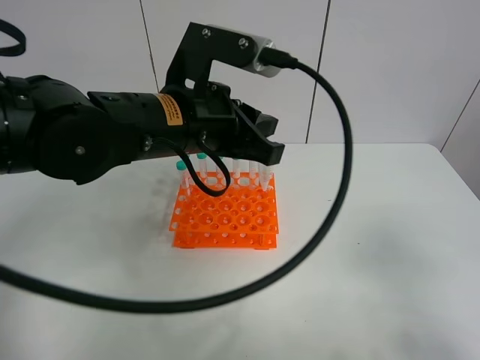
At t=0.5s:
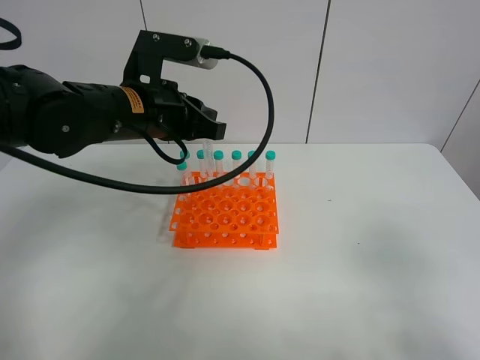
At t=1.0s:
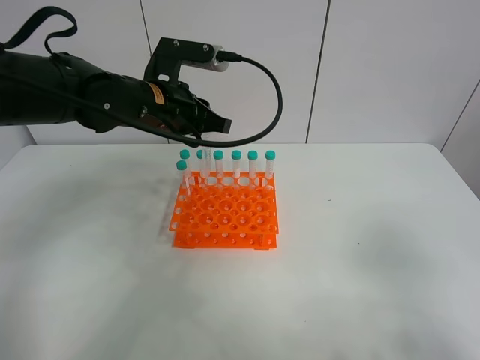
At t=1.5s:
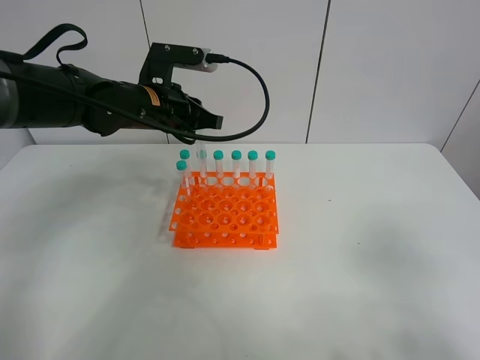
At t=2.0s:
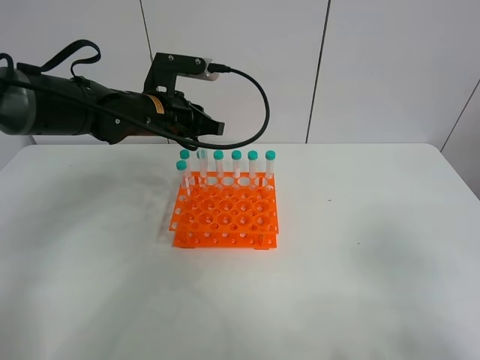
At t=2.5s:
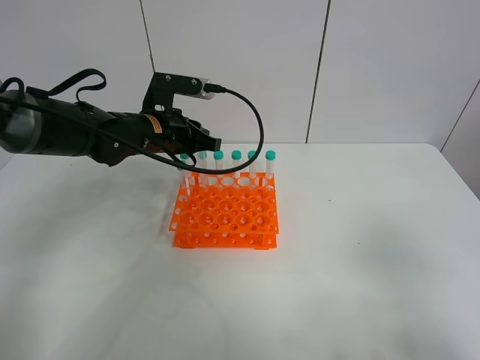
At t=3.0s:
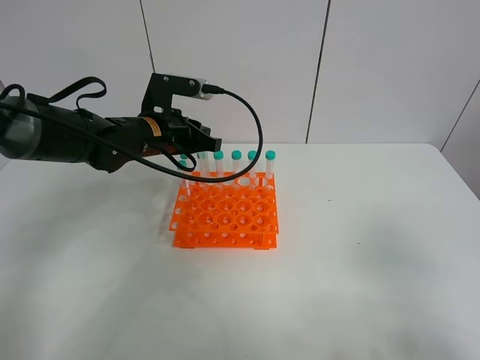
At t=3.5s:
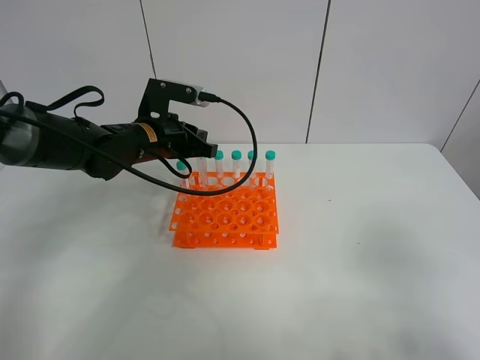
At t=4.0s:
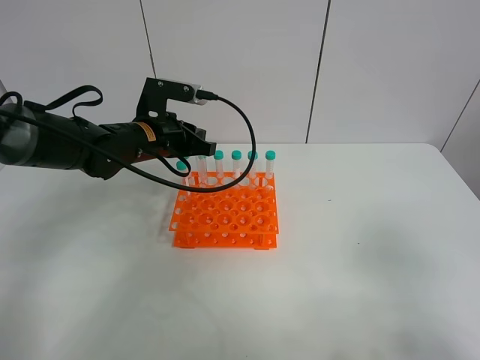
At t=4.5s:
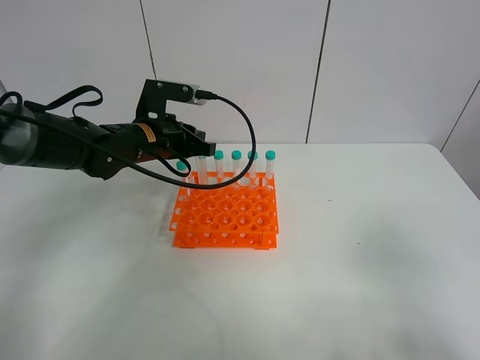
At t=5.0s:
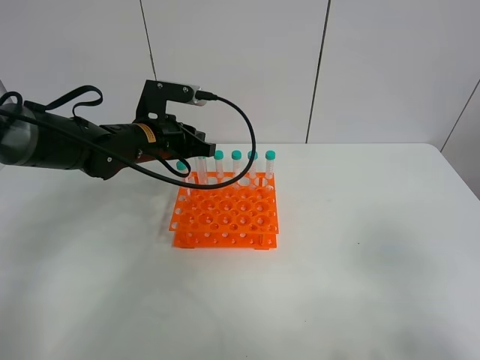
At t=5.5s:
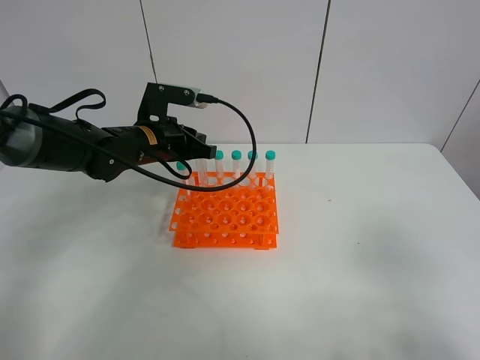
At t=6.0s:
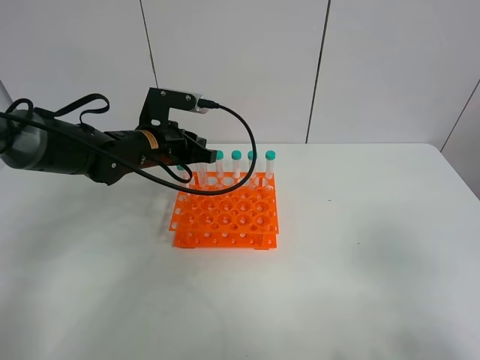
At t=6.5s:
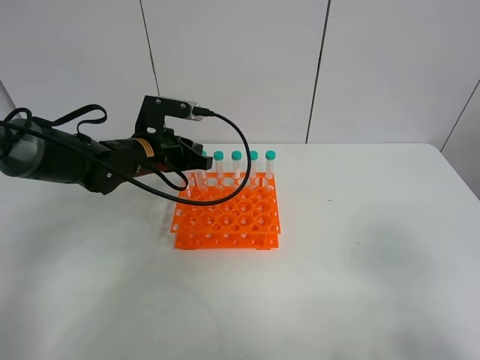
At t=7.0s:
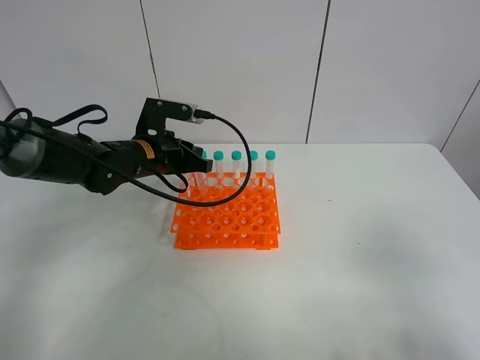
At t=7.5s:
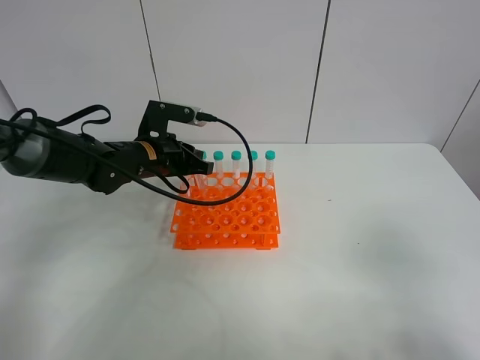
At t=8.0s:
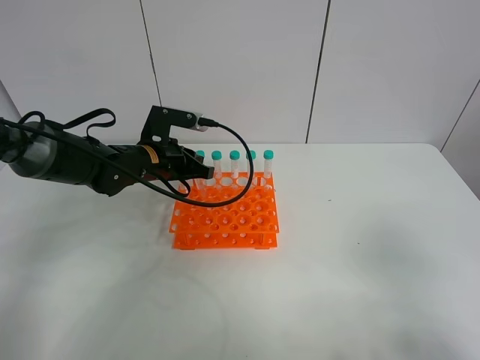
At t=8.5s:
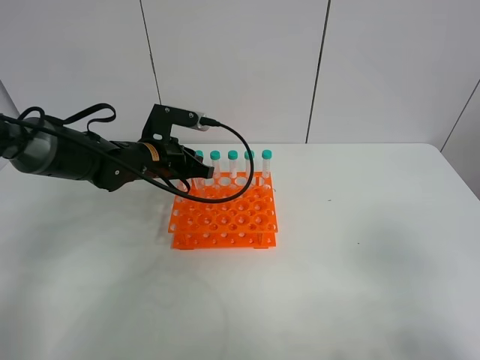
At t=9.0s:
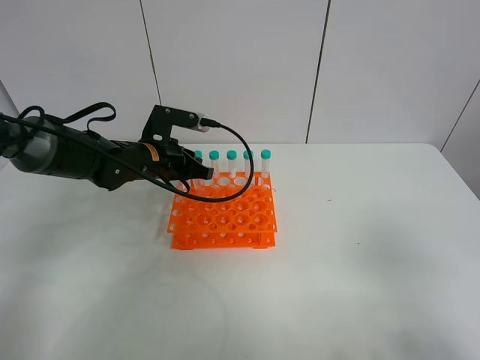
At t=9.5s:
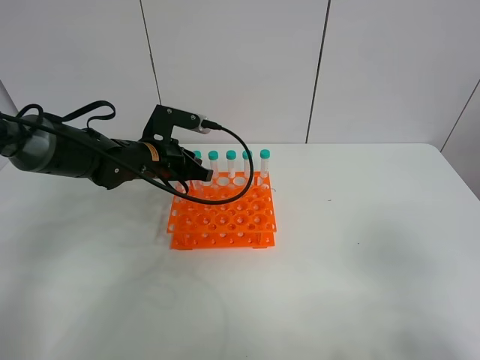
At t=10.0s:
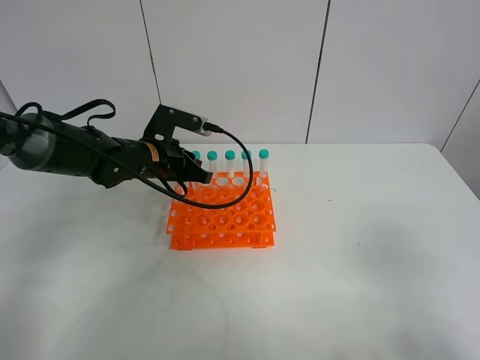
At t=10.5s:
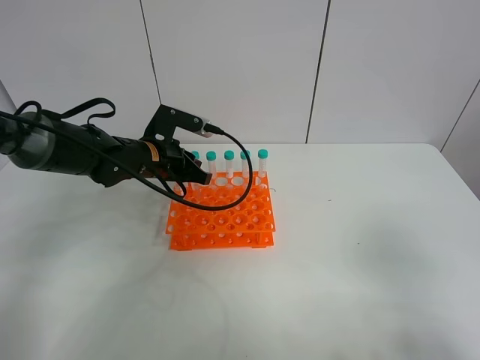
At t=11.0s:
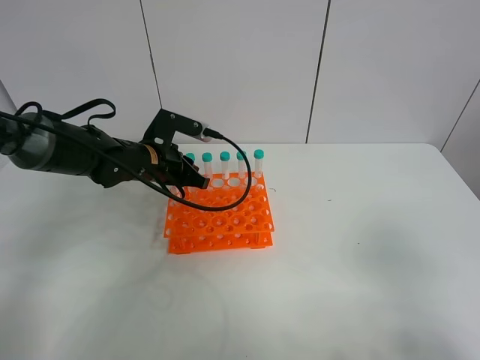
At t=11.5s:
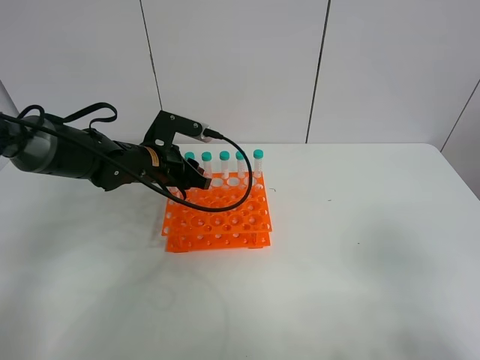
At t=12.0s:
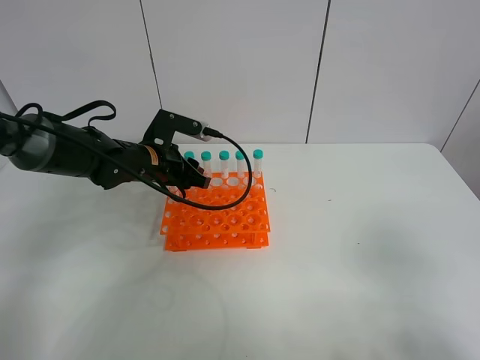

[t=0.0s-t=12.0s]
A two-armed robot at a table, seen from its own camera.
Task of the whole recording: Put the test tube on the table back onto the test tube rack.
t=0.0s to t=2.0s: The left gripper goes roughly 15 cm forward, to the left and downward.
t=2.0s to t=6.0s: There are only small adjustments of the grippers.
t=6.0s to t=10.0s: The grippers move only a little.
t=10.0s to t=12.0s: The left gripper opens its fingers.

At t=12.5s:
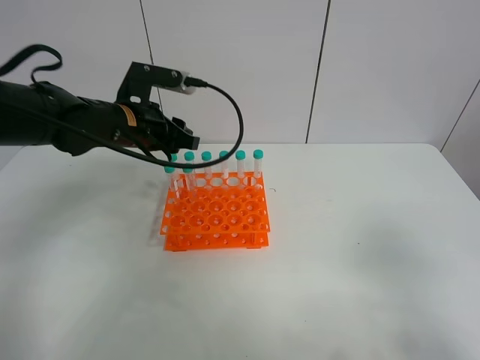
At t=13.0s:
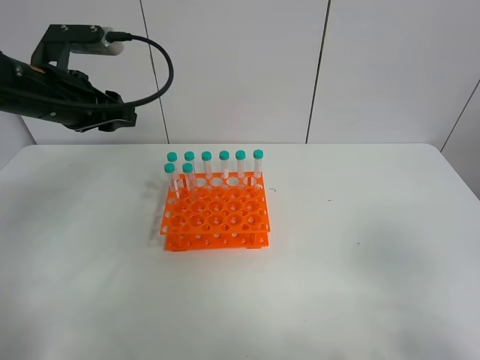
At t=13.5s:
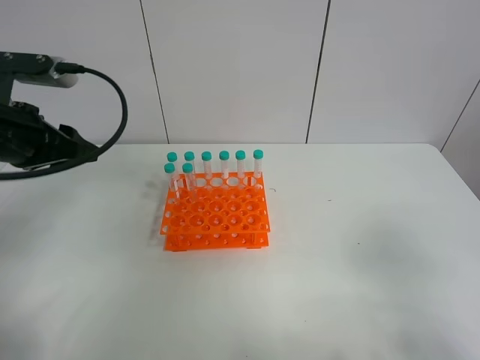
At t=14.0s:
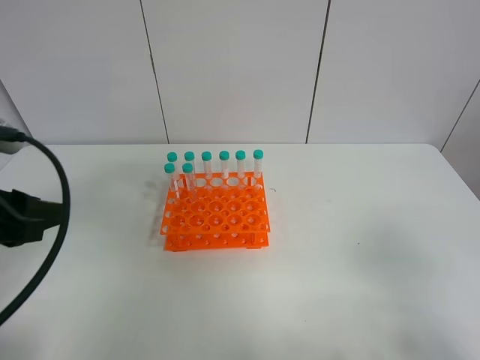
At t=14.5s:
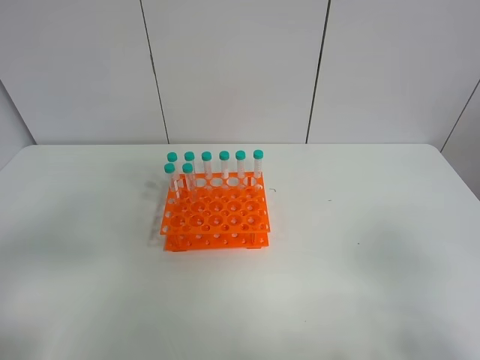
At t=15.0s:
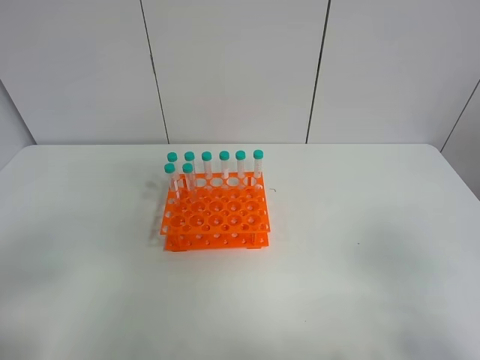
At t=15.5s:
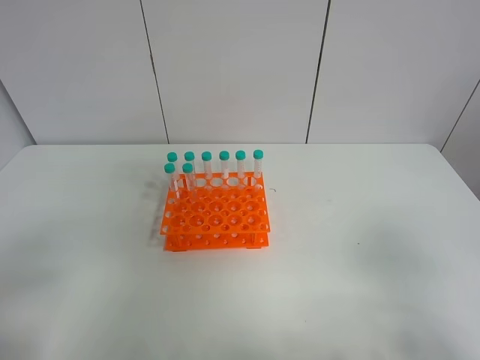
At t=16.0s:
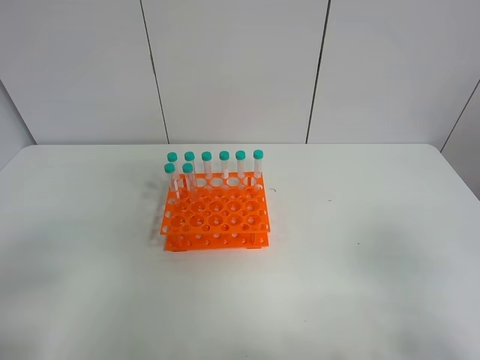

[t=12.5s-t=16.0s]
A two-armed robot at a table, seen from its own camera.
Task of the whole recording: Put the test tube on the table back onto the test tube rack.
t=12.5s to t=14.5s: The left gripper shifts approximately 30 cm backward.
